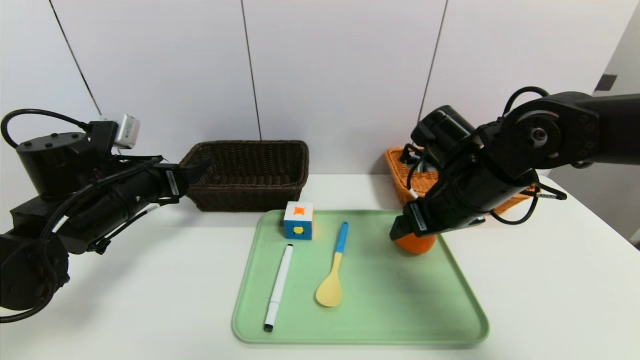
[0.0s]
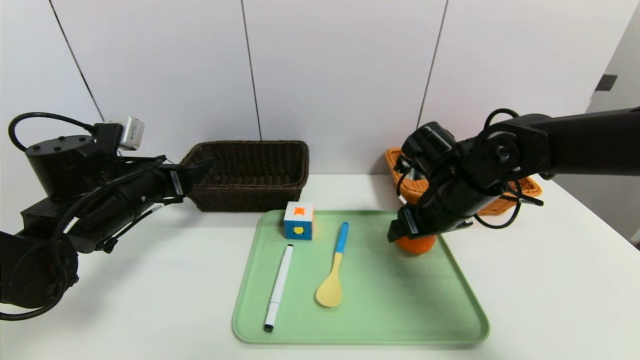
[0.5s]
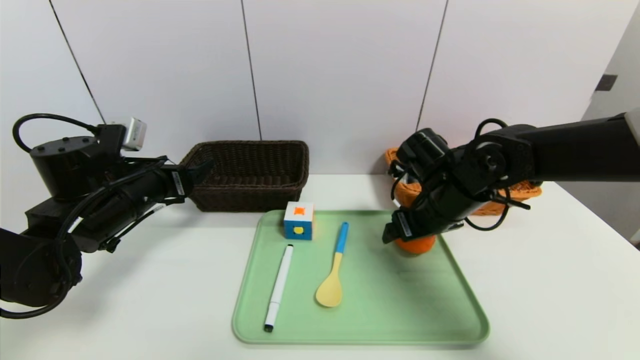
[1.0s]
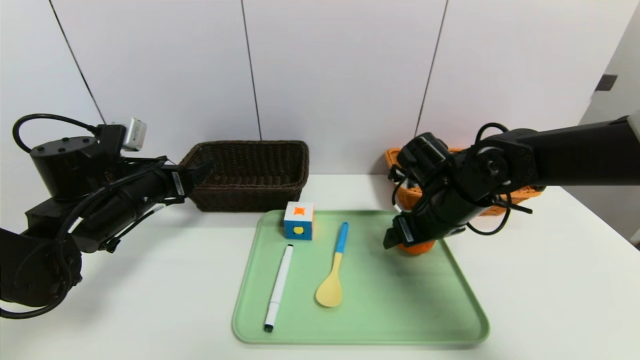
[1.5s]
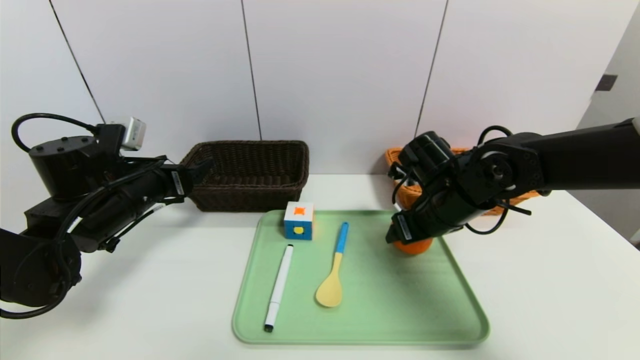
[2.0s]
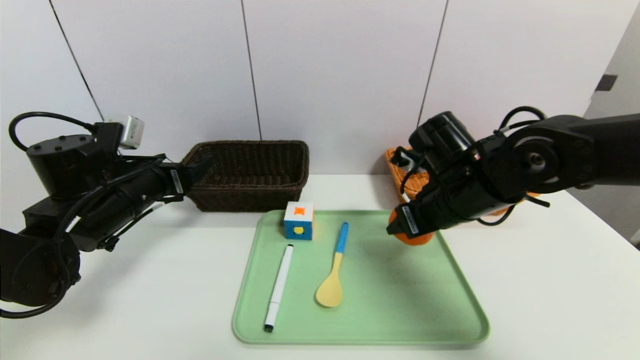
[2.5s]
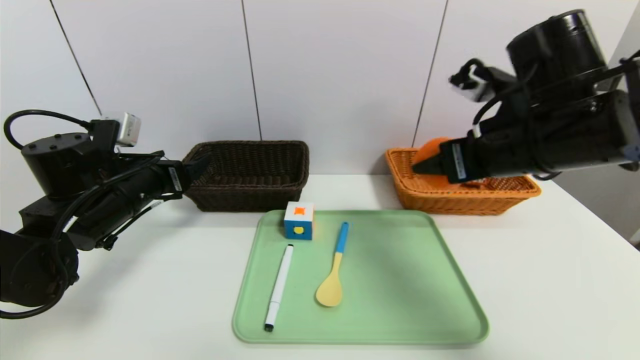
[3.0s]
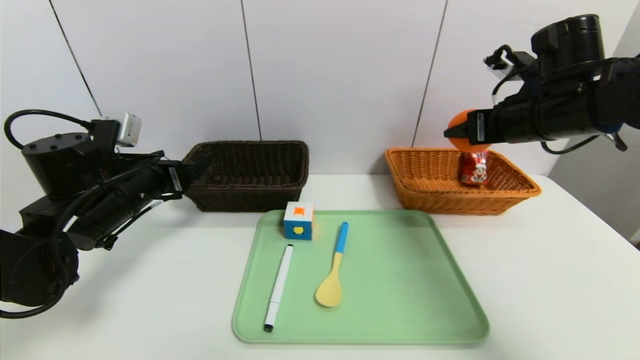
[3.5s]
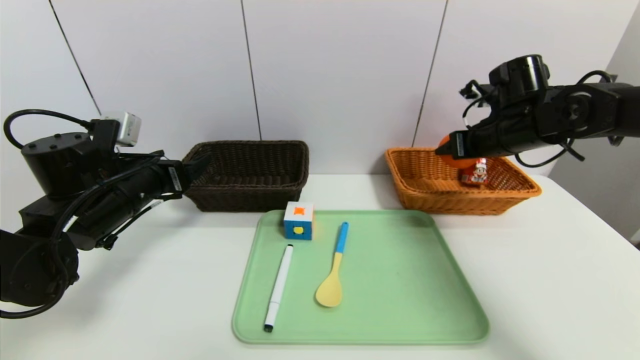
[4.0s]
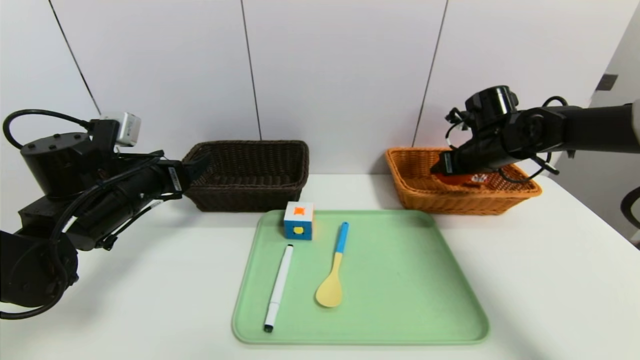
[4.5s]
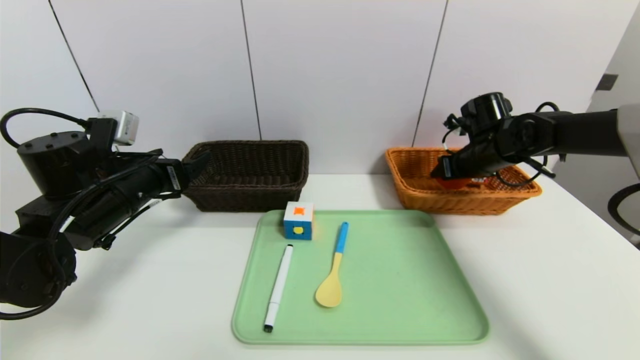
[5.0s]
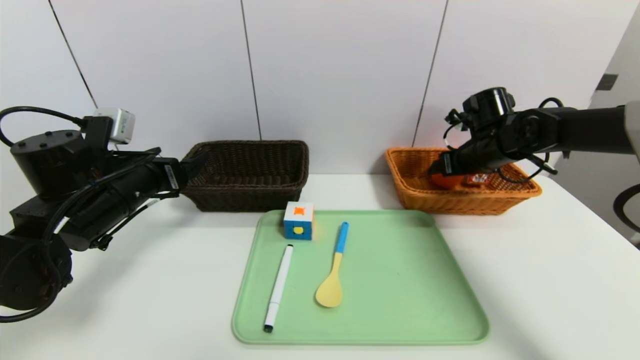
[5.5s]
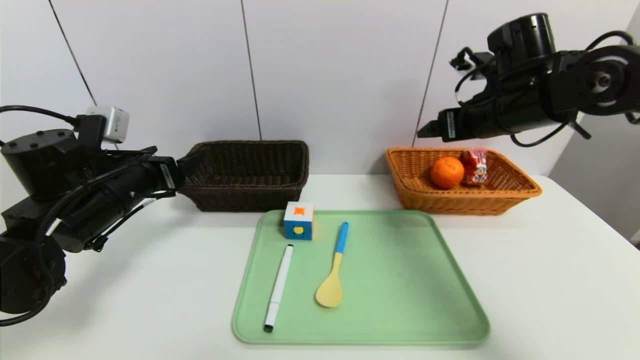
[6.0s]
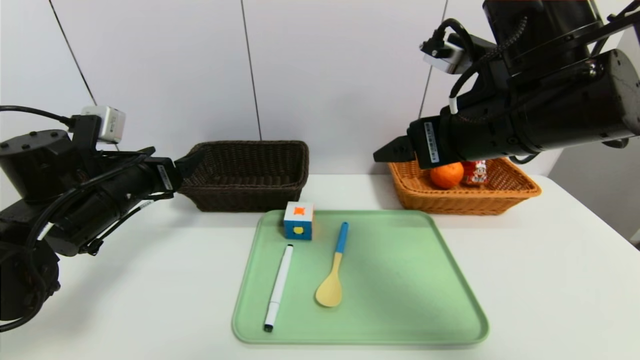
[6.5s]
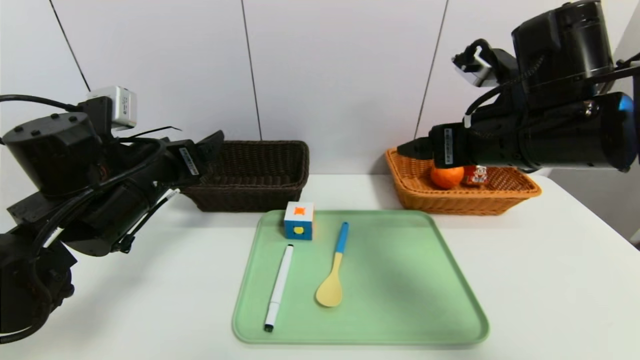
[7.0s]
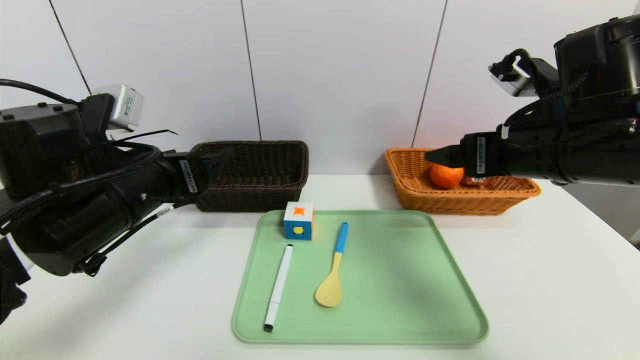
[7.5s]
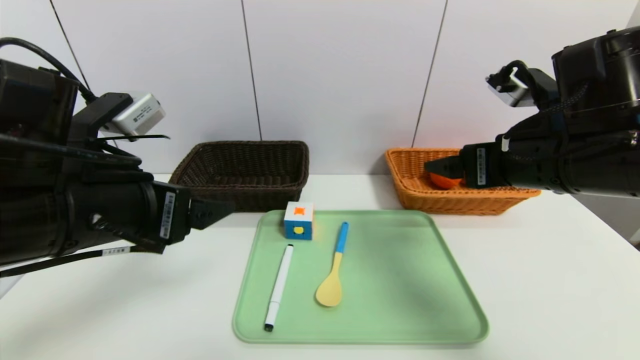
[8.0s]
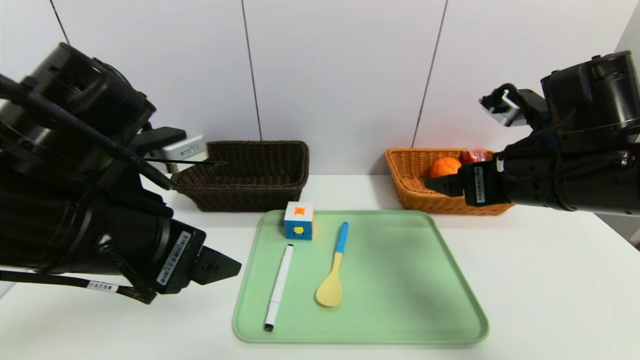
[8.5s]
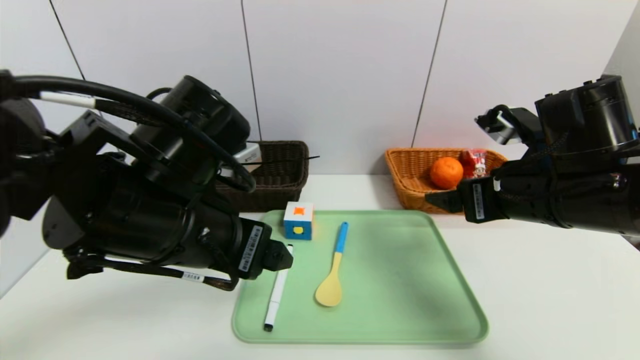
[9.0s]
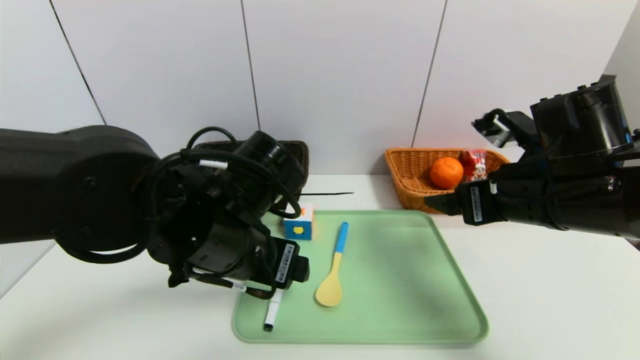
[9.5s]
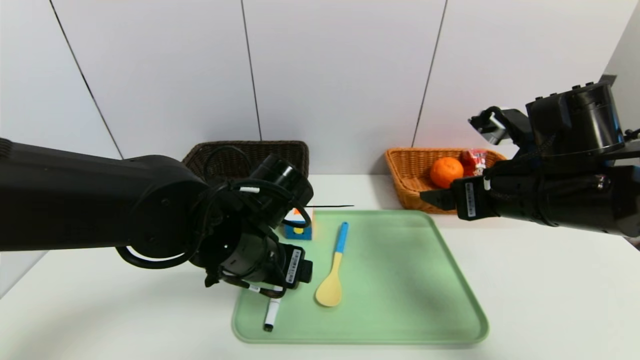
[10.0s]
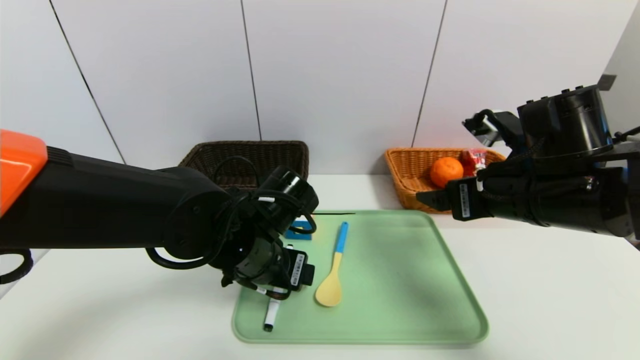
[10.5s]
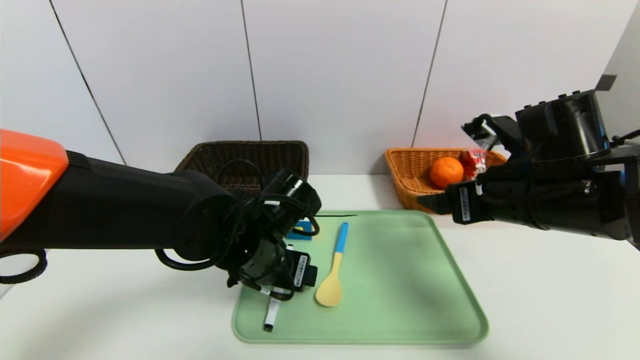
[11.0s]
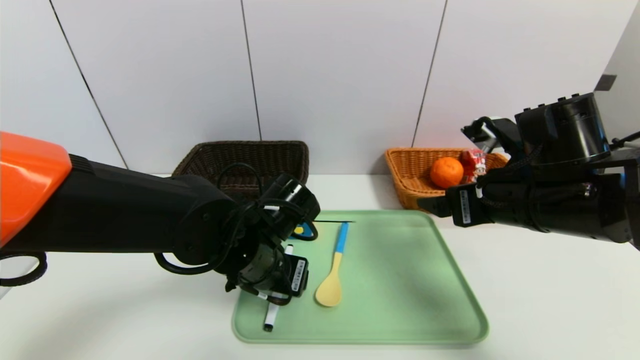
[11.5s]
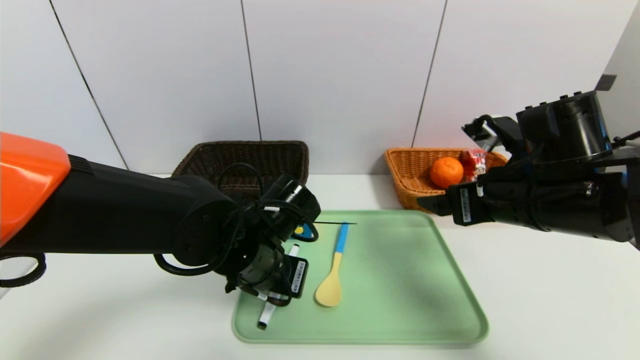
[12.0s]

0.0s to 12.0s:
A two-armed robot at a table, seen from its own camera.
Task of the whole recording: place the food in the right basket with the right gripper, and place the non food items in the left basket with the left gripper.
Step, 0.0s to 5.5s: Grasp the orange and put it in the right basket.
0.0s to 2.0s: The right gripper changes place by about 5 cm.
2.0s to 4.0s: The right gripper travels to the right, forward and upward by approximately 15 cm.
4.0s to 6.0s: The right gripper moves upward, to the left and backward, some 10 cm, and opens up.
6.0s to 8.0s: The left gripper shifts roughly 15 cm backward, upward and to the right. Meanwhile the right gripper travels backward by roughly 10 cm.
8.0s to 10.0s: The left gripper travels to the right, downward and forward by about 15 cm.
10.0s to 12.0s: The left gripper closes up.

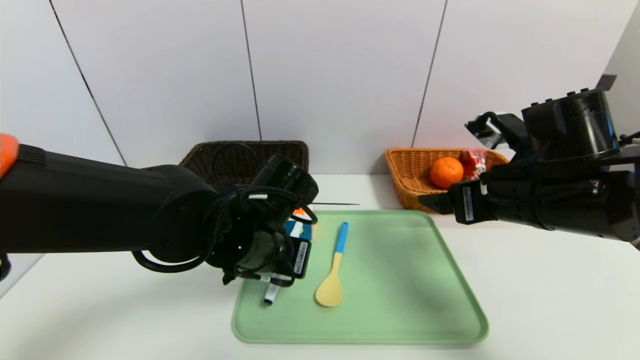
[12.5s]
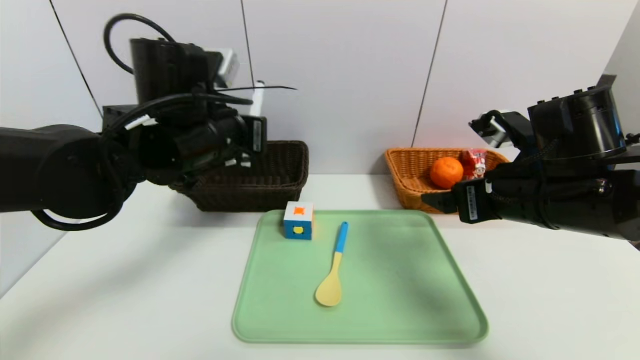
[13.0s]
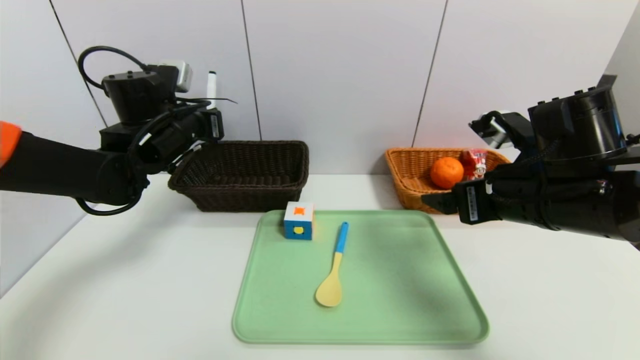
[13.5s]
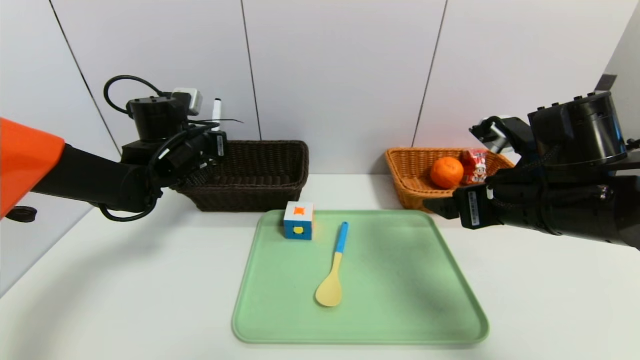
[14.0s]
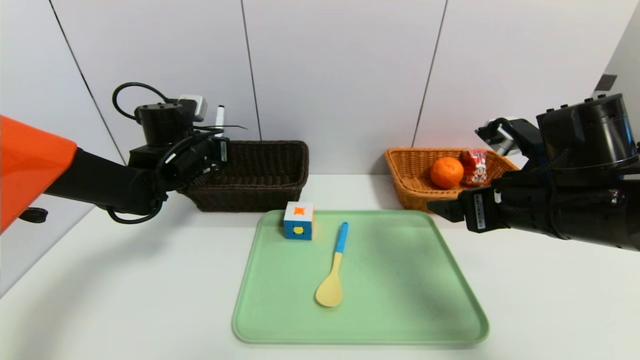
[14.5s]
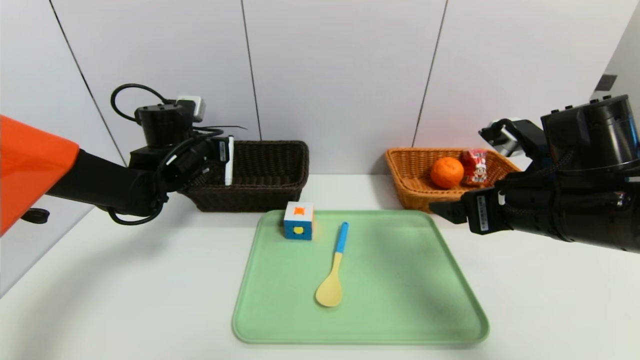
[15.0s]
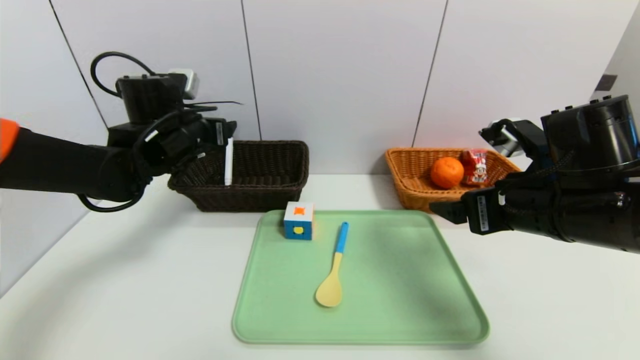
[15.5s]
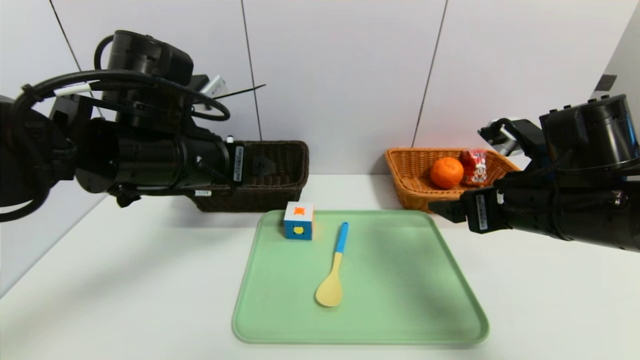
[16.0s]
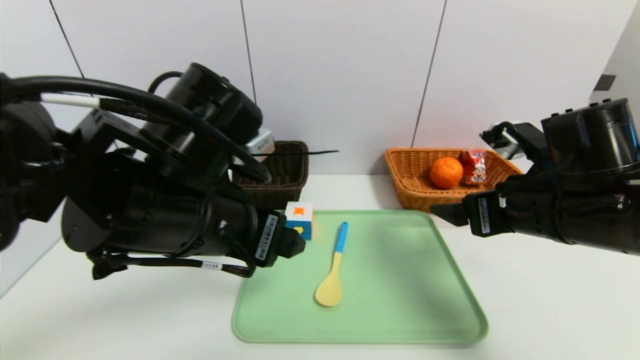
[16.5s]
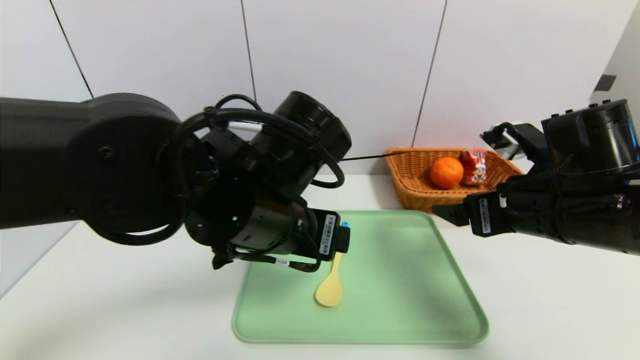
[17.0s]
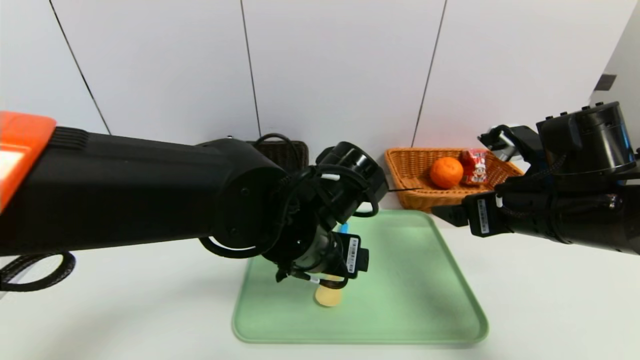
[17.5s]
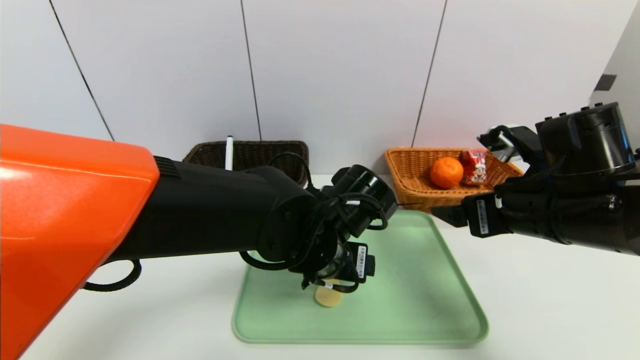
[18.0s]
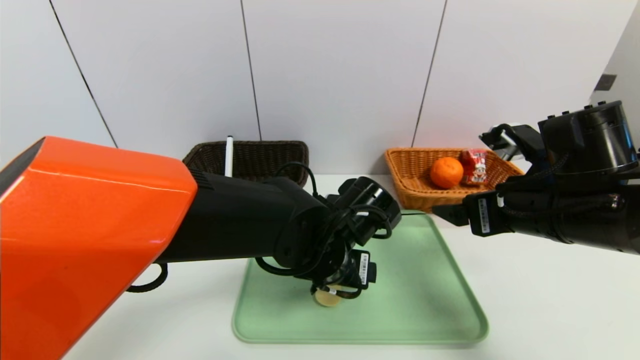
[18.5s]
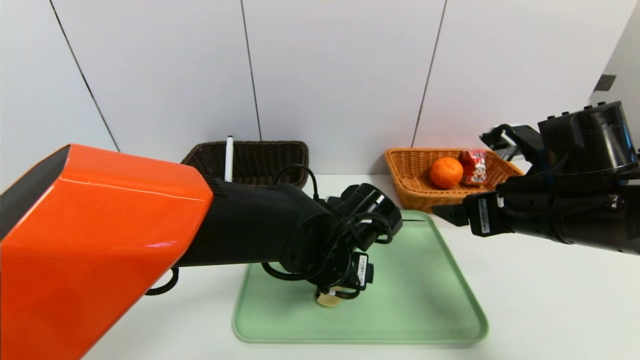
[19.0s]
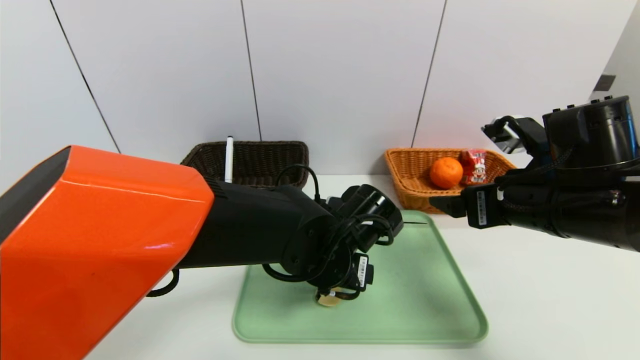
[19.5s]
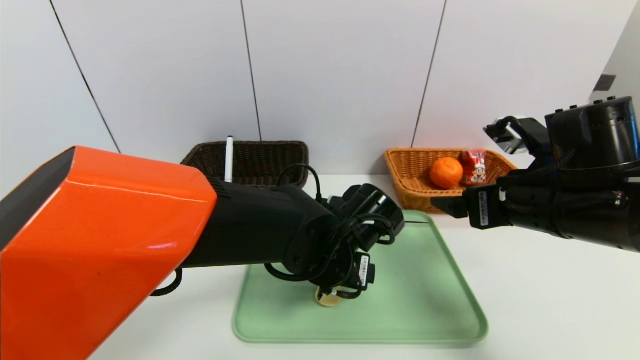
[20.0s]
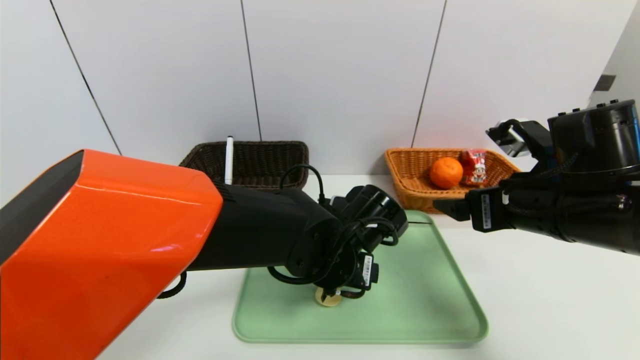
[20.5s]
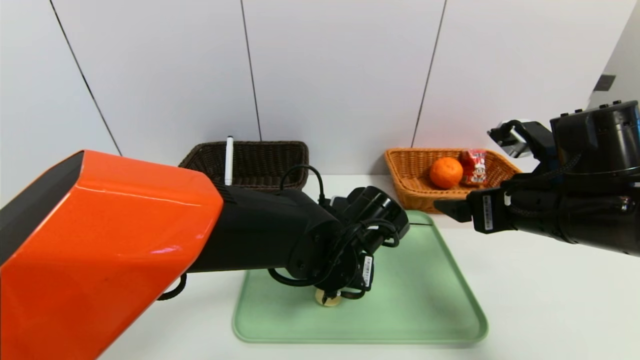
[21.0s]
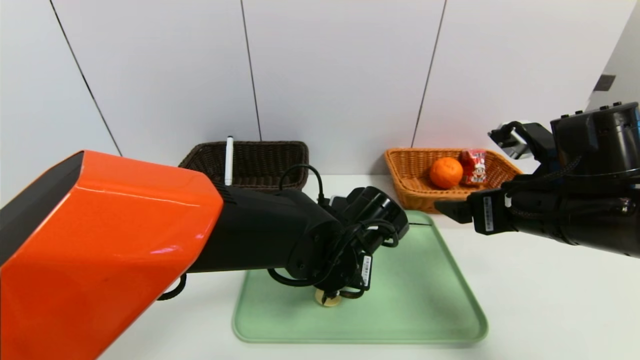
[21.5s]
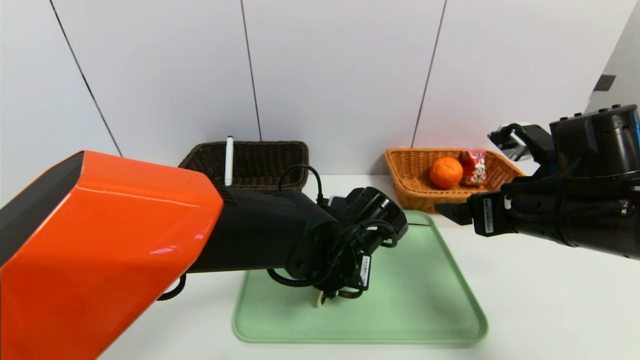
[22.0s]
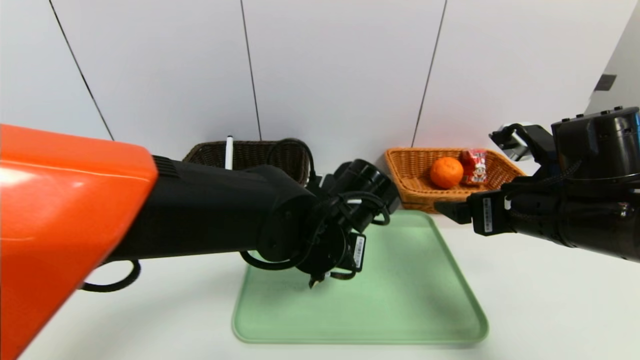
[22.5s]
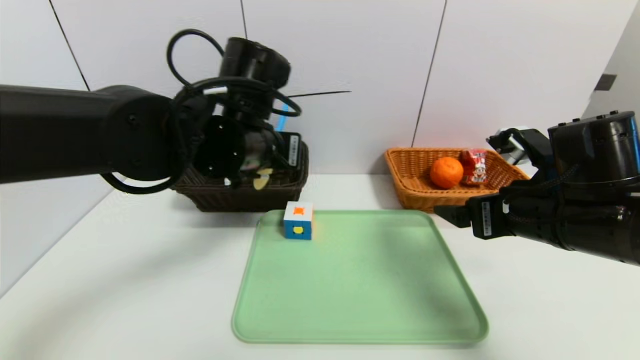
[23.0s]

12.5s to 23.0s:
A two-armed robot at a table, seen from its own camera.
Task of the whole recording: place the food in the right basket with the right gripper, and place the non food items in the left basket with the left gripper.
Step, 12.5s to 15.5s: Grasp the black marker and put it in the left basket.
12.5s to 14.5s: The left gripper heads forward and to the left, covering approximately 20 cm.
14.5s to 16.5s: The left gripper moves backward and to the right, about 25 cm, and opens its fingers.
16.5s to 19.0s: The left gripper shifts some 20 cm downward, to the right and forward.
19.0s to 21.0s: Both grippers stay put.
21.0s to 23.0s: The left gripper travels upward and to the left by about 20 cm, and closes its fingers.
